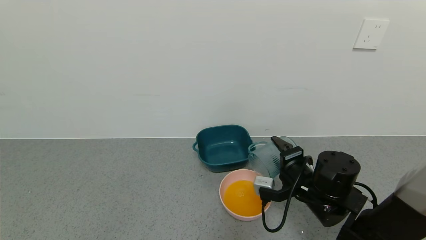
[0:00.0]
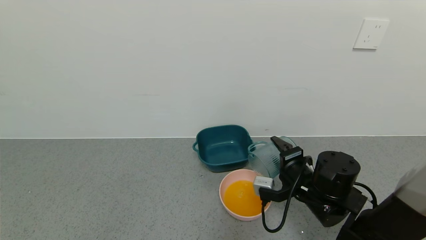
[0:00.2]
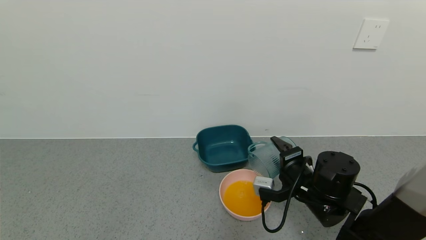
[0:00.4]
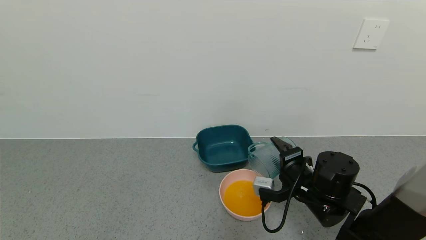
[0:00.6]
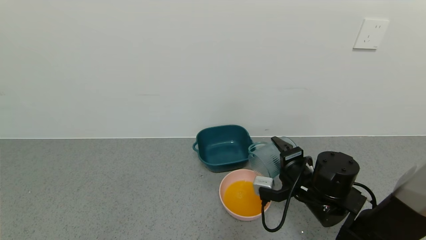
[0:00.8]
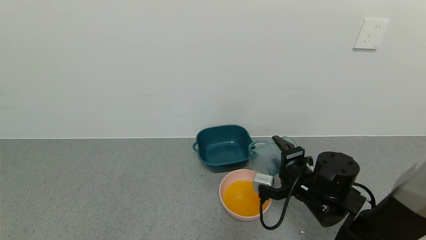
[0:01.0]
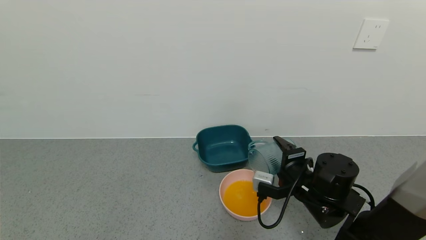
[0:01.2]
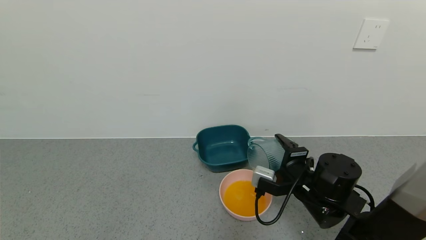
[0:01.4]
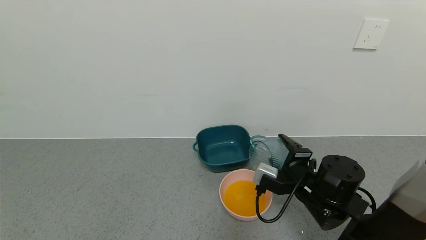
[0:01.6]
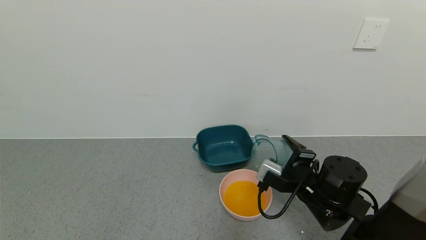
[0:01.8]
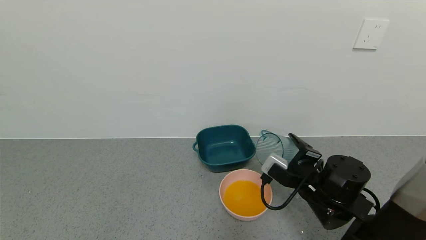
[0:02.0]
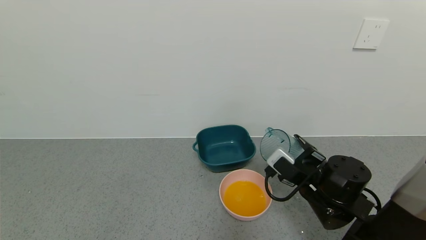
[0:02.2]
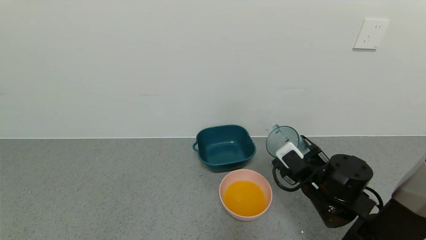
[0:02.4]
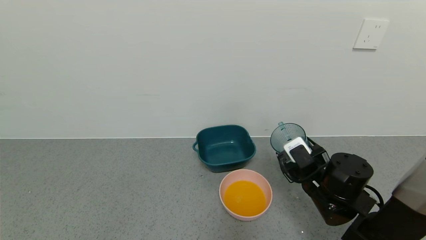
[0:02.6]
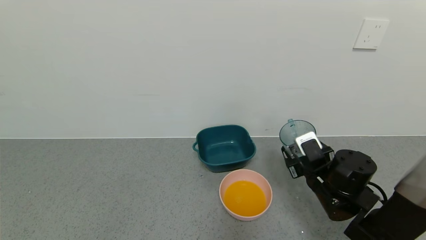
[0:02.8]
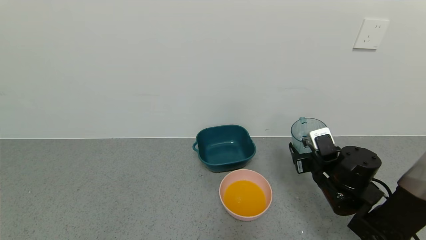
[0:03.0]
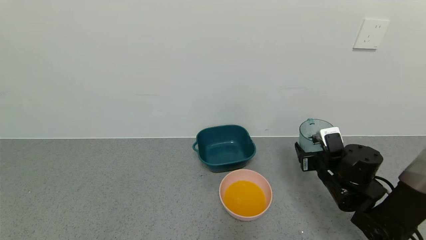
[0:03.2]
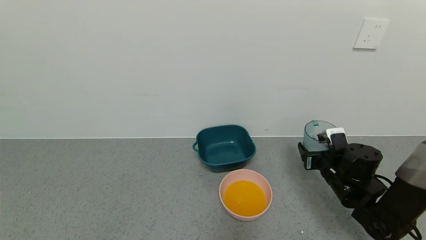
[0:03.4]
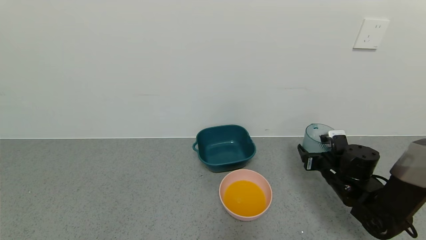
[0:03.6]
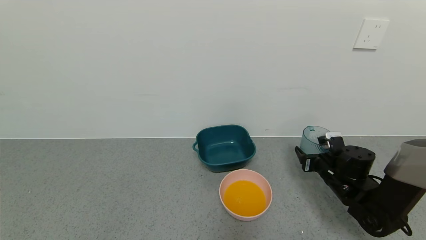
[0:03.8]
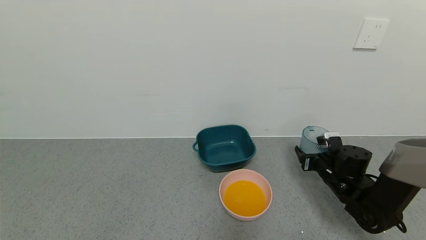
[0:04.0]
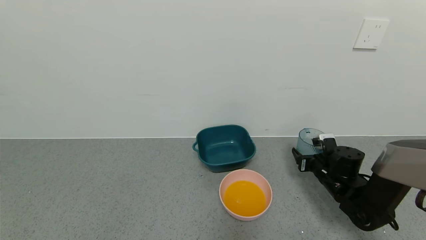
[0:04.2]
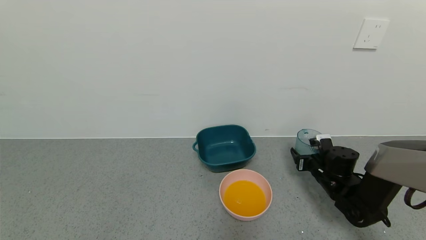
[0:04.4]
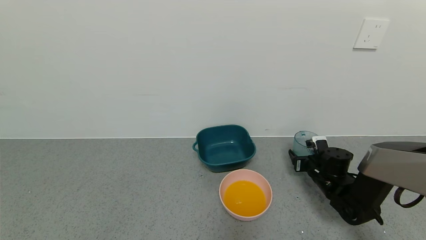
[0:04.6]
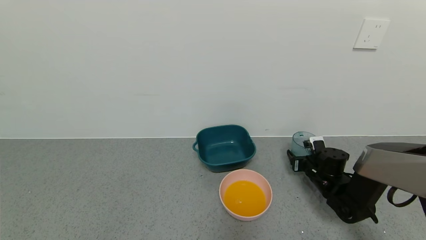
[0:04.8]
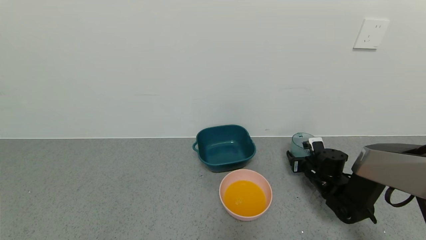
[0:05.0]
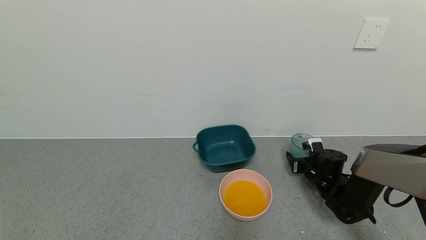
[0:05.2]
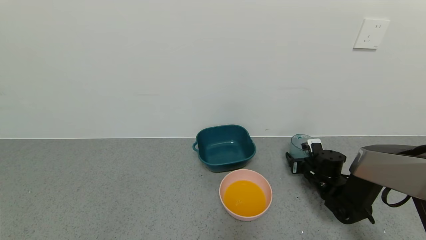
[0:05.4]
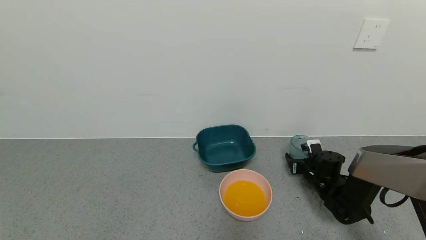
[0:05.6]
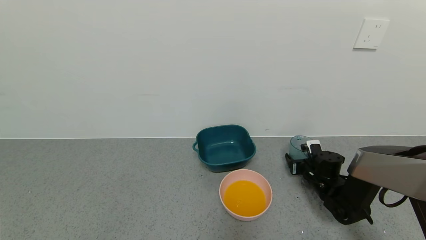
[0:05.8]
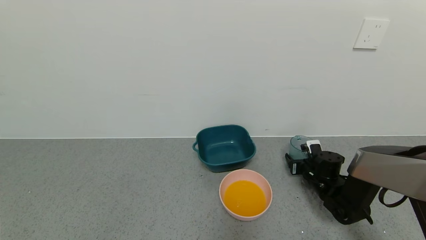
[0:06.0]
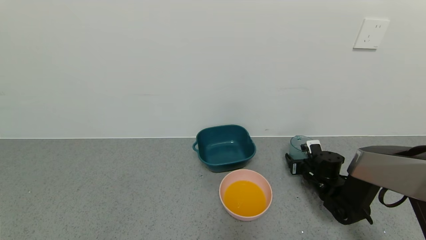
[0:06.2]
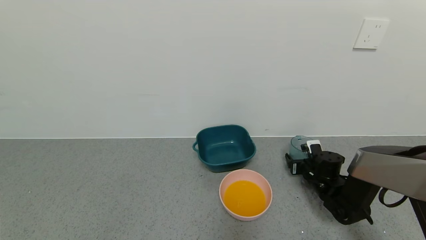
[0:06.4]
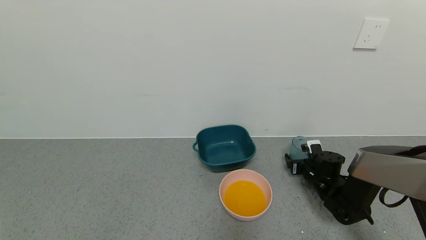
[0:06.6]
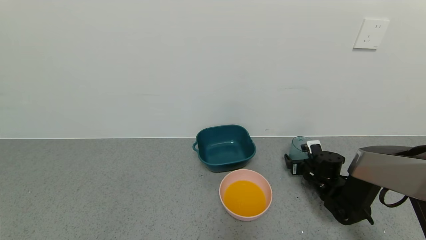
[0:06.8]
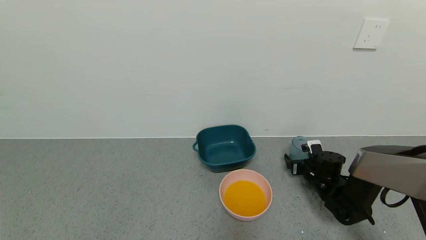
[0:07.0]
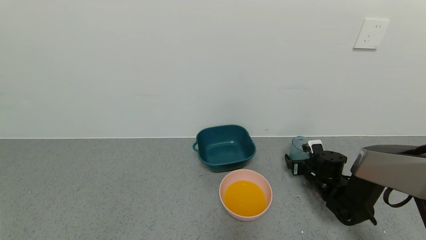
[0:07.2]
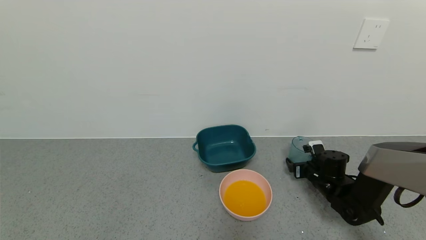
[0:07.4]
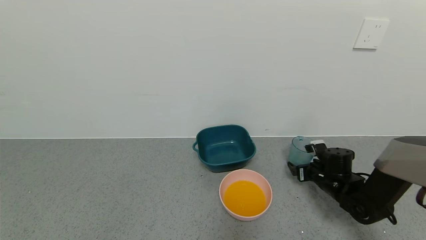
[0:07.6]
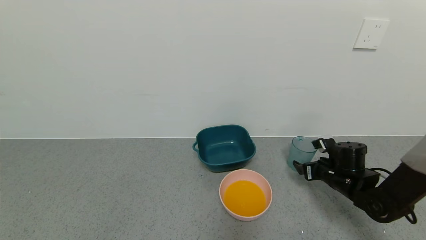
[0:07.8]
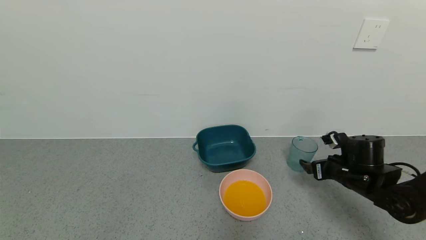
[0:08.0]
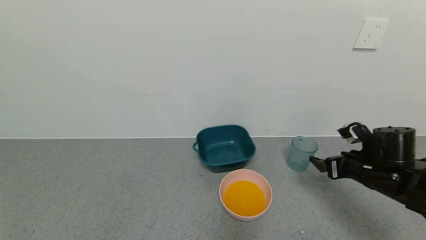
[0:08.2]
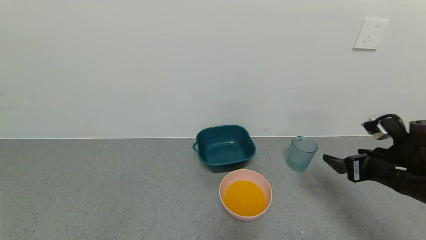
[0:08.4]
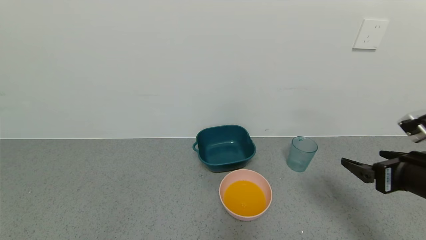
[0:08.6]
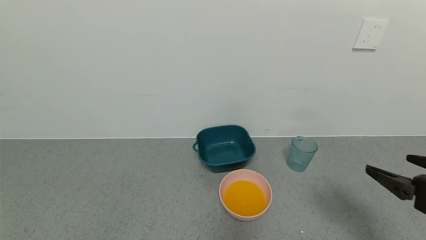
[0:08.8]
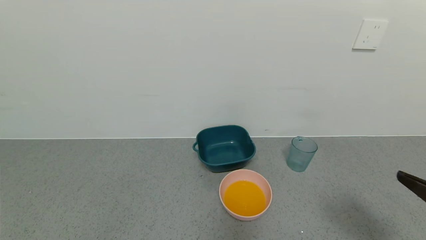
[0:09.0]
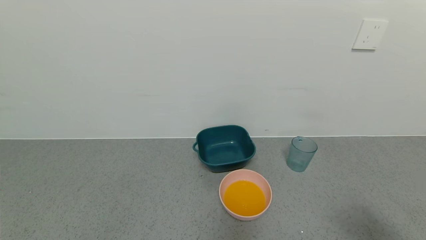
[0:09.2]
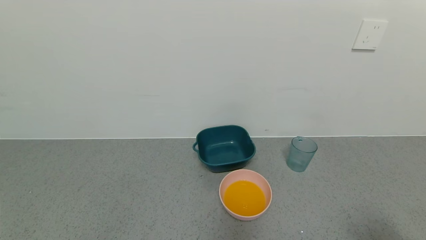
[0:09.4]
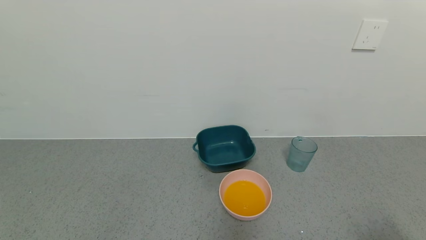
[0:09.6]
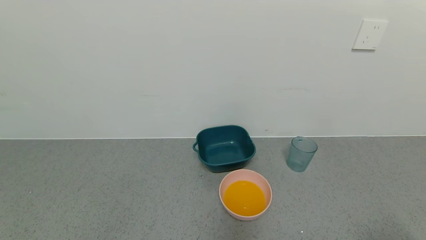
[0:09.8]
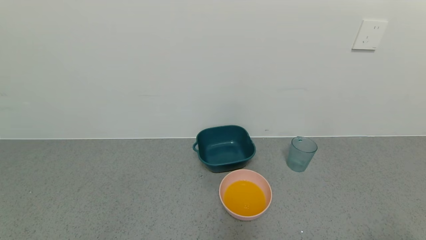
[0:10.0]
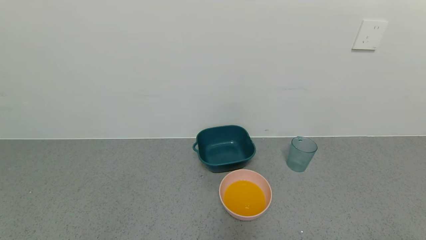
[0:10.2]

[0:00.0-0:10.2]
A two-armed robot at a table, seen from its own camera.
Task of the whole recording: use a gripper to pick up the cup and pour the liquid into a bowl or tray.
Step, 0:01.2 to 0:07.8: Place the glass cup with the right gripper.
0:00.0 to 0:01.4: The grippers move only a little.
0:01.4 to 0:03.0: The right gripper moves to the right, some 5 cm.
0:03.0 to 0:04.4: The right gripper moves forward, downward and to the right, roughly 10 cm.
0:04.4 to 0:05.8: There are only small adjustments of the grippers.
0:05.8 to 0:07.2: The right gripper opens its fingers.
0:07.2 to 0:08.8: The right gripper shifts some 35 cm backward and upward.
0:08.8 to 0:10.2: The right gripper moves backward, roughly 15 cm.
